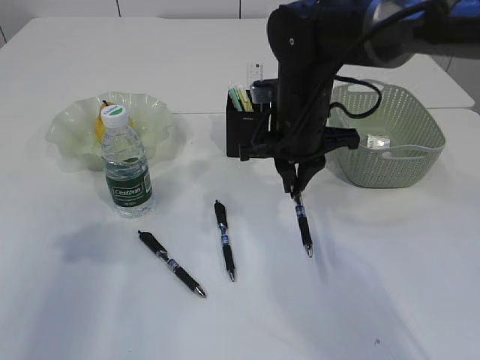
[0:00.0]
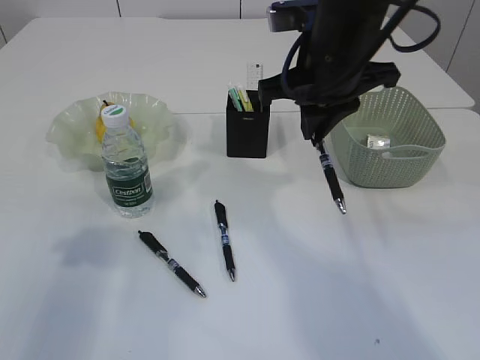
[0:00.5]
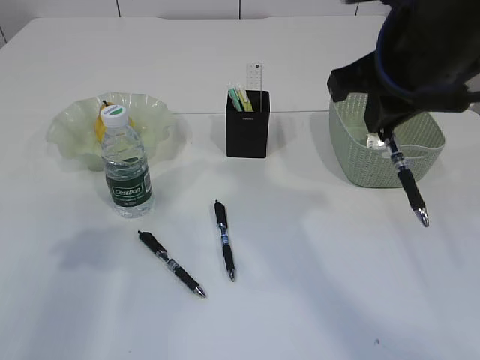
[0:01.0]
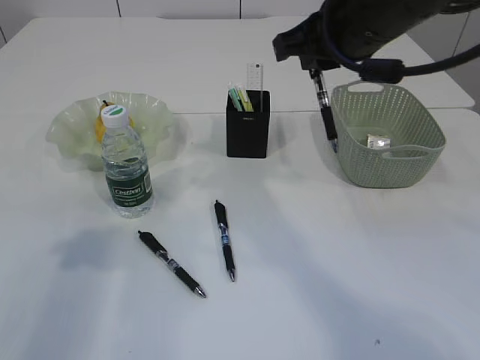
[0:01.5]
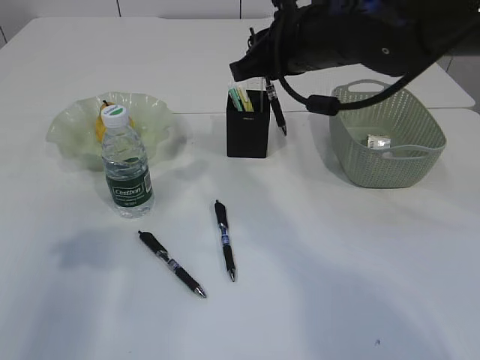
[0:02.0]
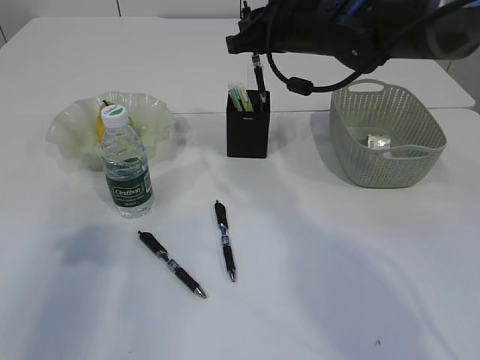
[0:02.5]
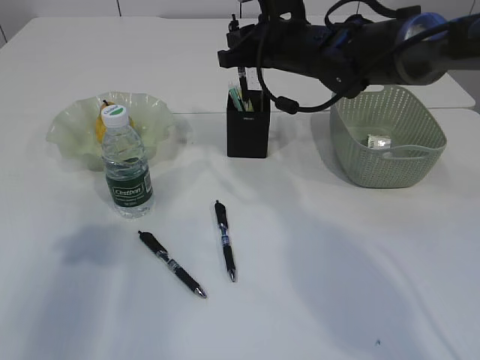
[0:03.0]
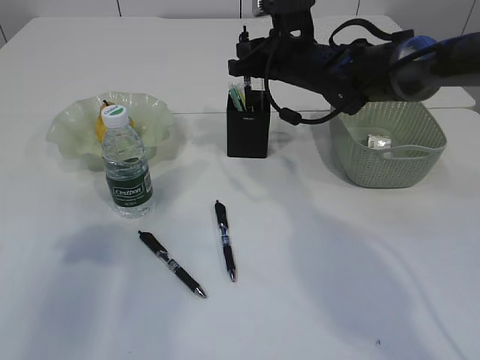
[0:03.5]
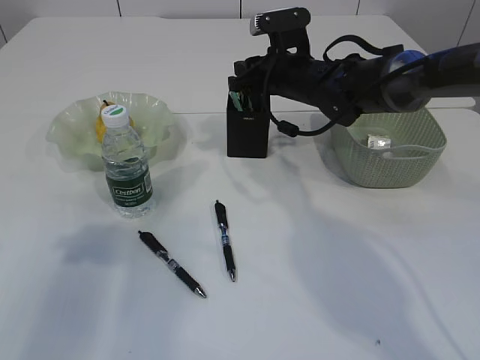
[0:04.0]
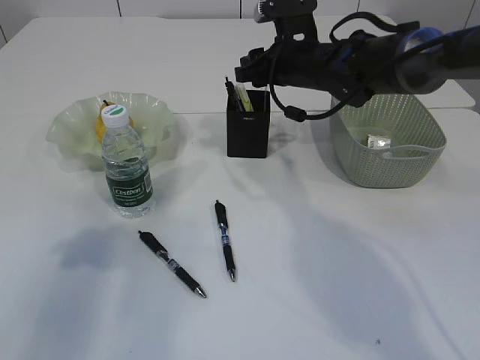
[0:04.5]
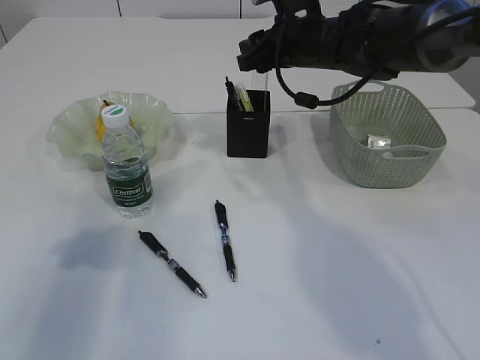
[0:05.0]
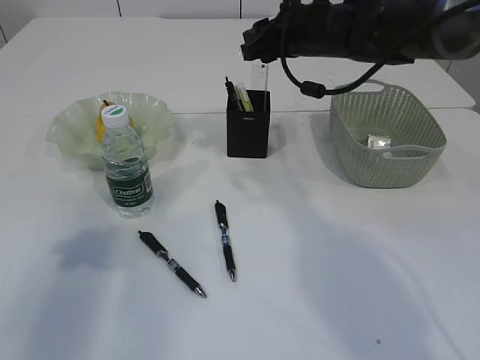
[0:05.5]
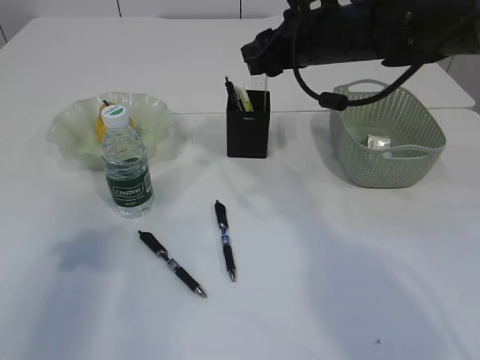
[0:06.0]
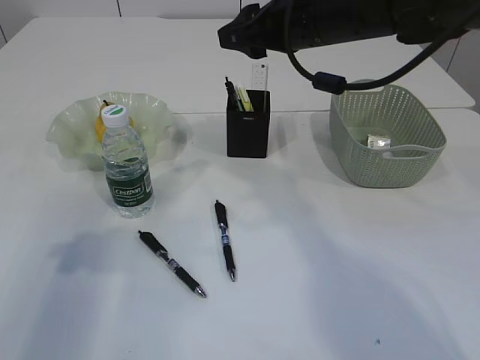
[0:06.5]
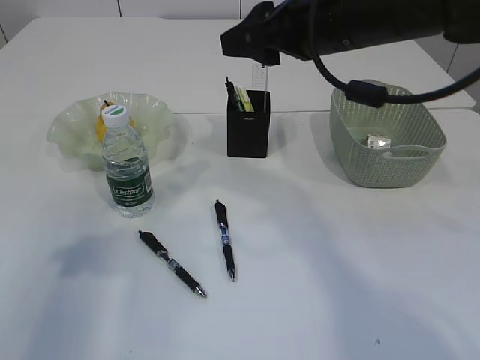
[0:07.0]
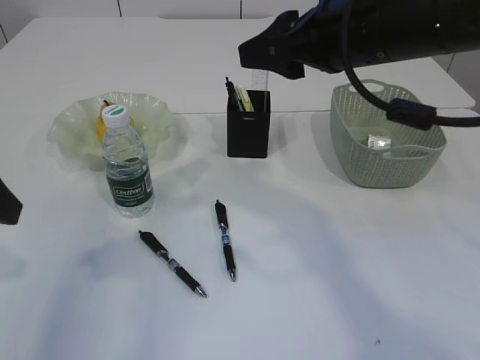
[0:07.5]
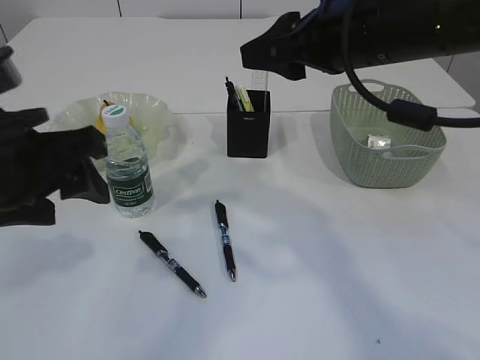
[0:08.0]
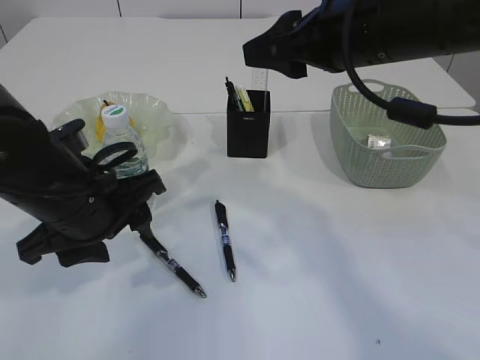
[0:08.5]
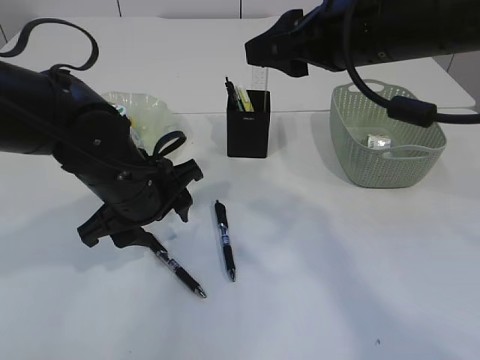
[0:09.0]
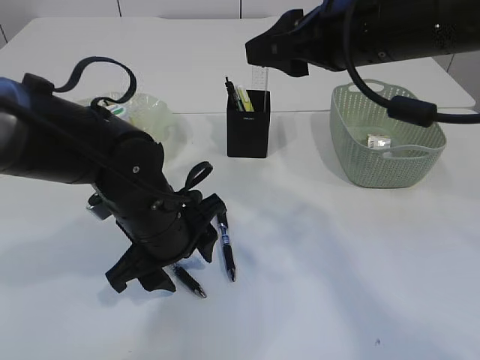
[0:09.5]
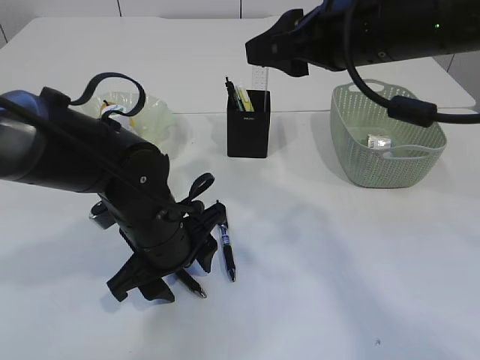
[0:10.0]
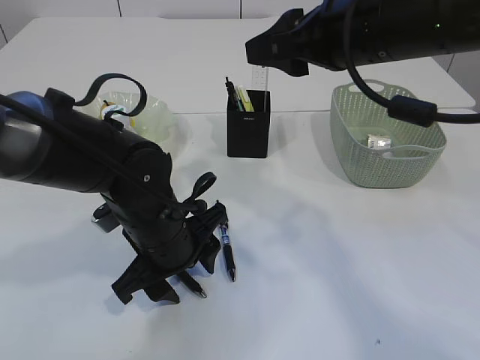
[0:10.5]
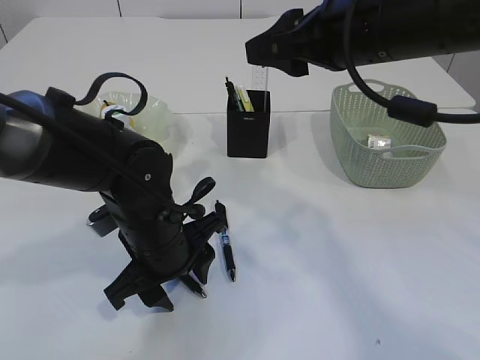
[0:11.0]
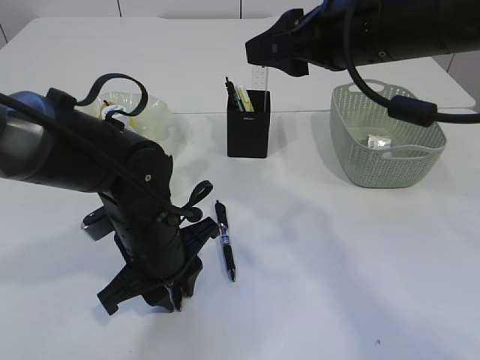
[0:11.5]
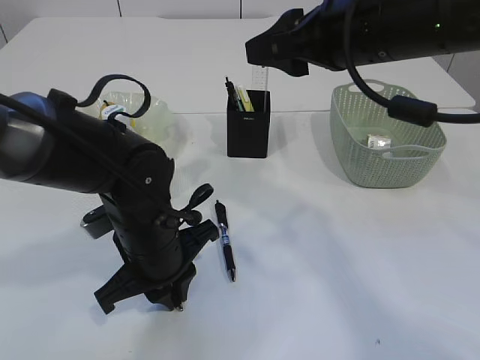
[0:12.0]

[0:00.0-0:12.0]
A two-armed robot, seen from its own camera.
Step, 0:01.0 to 0:04.5: Place the pen into the pen holder.
0:00.0 to 0:02.0: The right gripper heads upward, covering some 10 cm.
0:02.0 to 0:04.0: The right gripper moves forward and downward, about 15 cm.
0:04.0 to 0:06.0: The right gripper heads upward and backward, covering about 10 cm.
0:06.0 to 0:08.0: The right gripper shifts some 10 cm backward and upward. Meanwhile the left gripper heads to the right, covering about 10 cm.
0:08.0 to 0:10.0: The left gripper heads downward, to the right and forward, covering some 20 cm.
0:10.0 to 0:12.0: The left gripper closes its fingers.

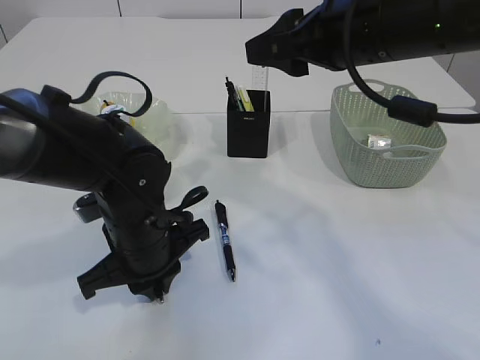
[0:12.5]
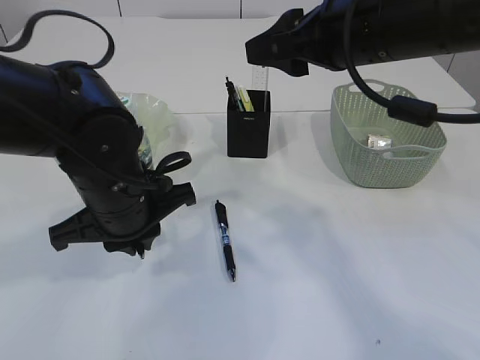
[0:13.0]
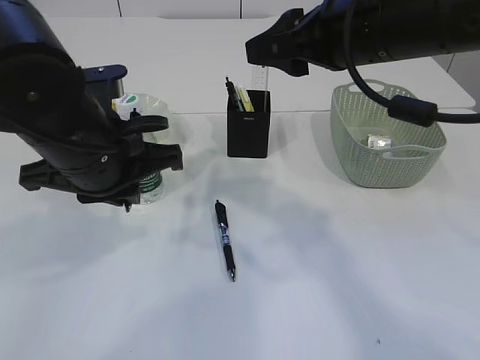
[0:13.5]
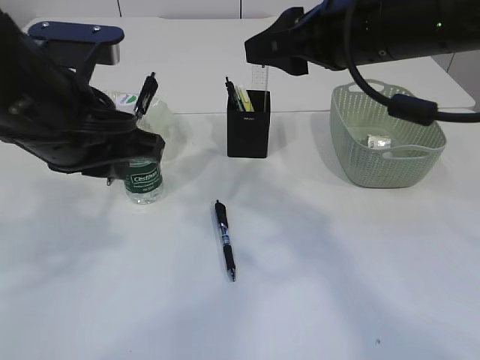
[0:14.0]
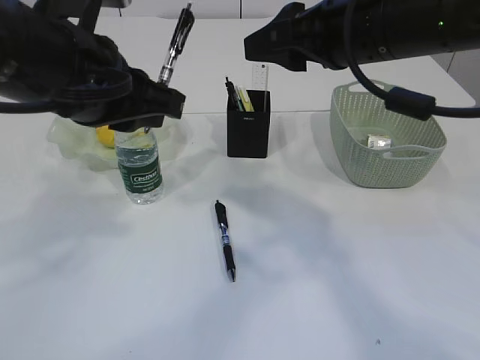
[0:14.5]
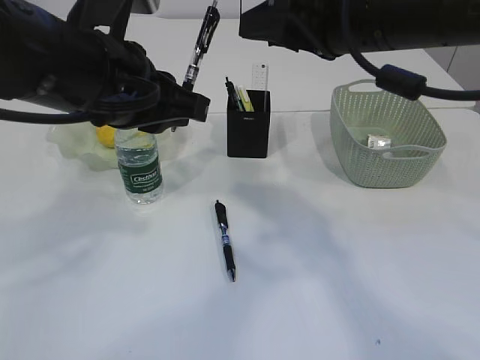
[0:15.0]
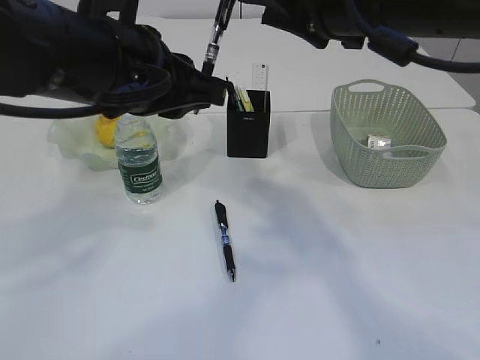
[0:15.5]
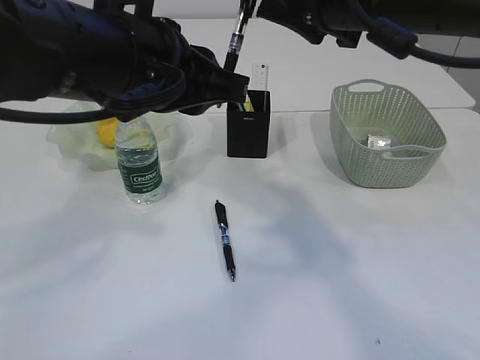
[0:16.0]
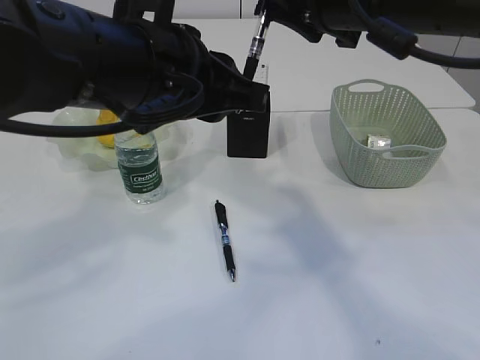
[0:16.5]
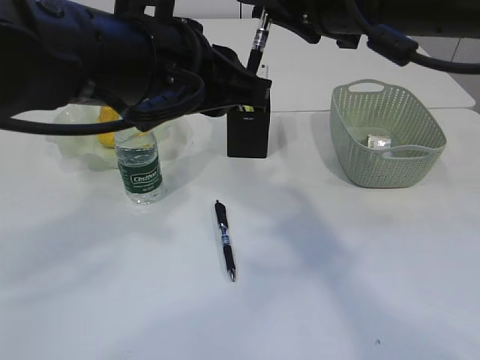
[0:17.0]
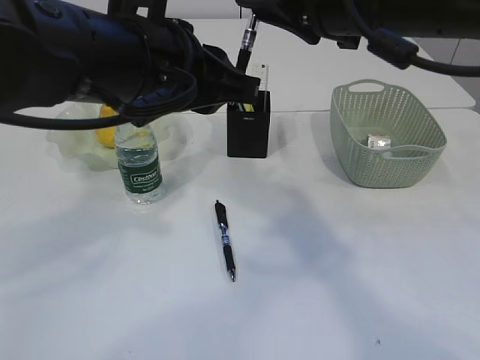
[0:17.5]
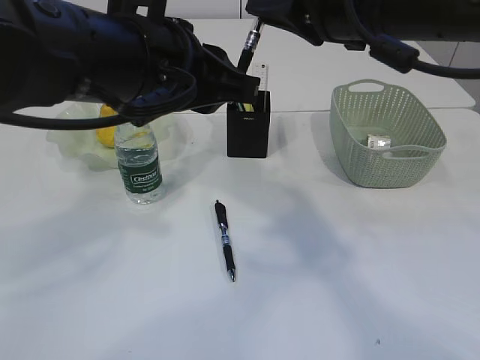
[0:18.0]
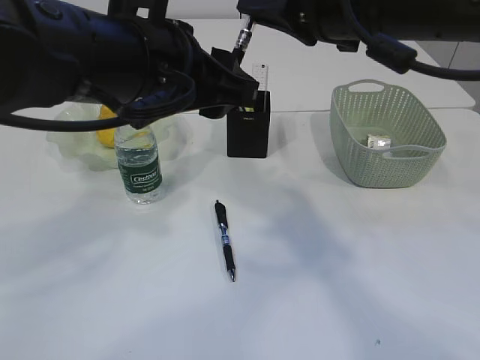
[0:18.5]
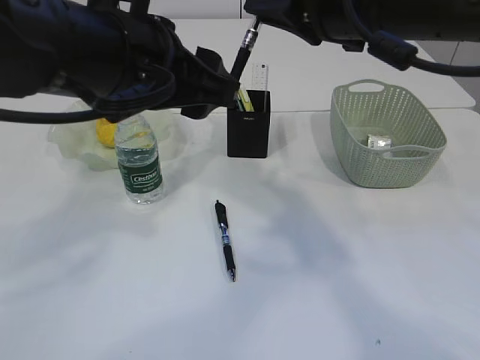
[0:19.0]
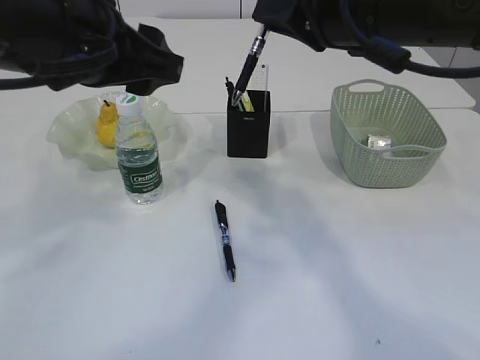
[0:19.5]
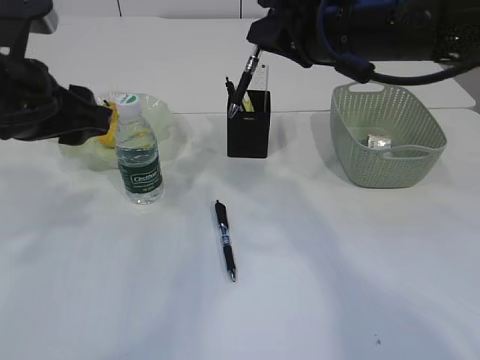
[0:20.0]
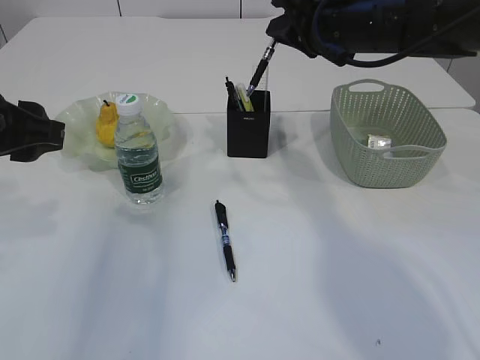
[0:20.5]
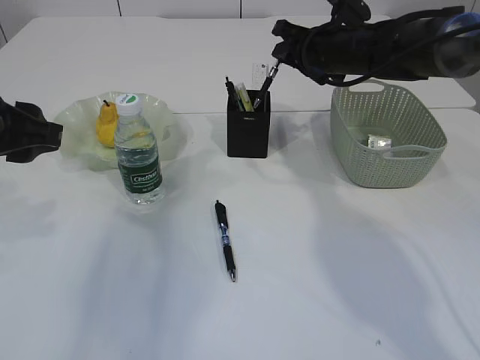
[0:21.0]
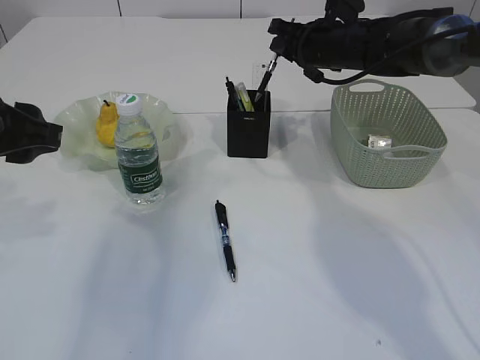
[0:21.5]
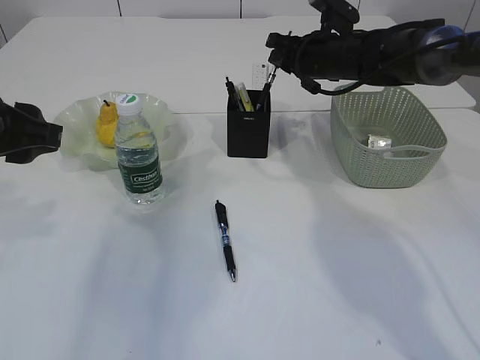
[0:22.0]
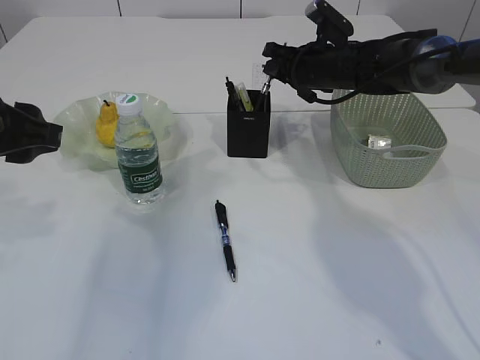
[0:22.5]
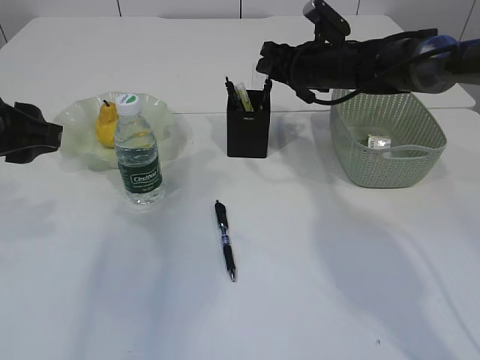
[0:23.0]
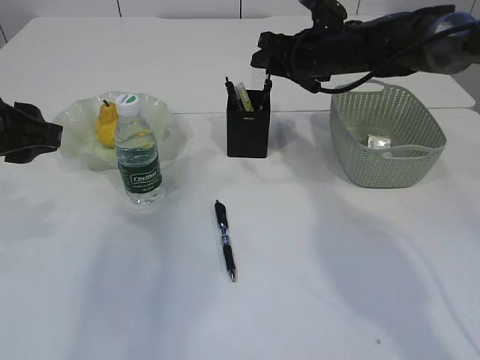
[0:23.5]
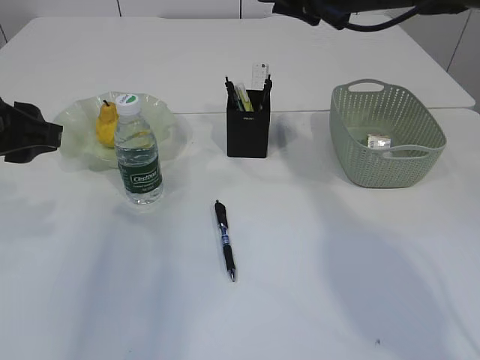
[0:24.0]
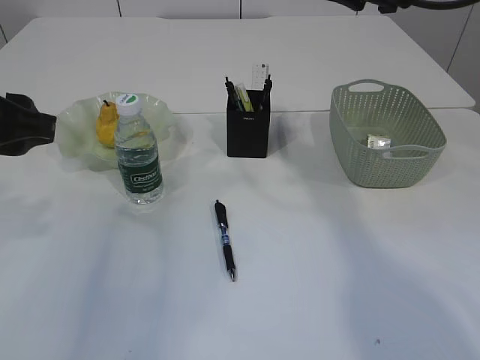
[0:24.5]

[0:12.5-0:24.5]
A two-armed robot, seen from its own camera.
Step, 0:19.0 to 0:24.0: Place the pen into the pen holder.
0:12.5 to 0:14.5: The left gripper goes approximately 20 cm upward.
0:14.5 to 0:16.5: The left gripper shifts roughly 5 cm to the right.
0:16.5 to 0:18.5: The left gripper opens its fingers; the right gripper closes.
0:18.5 to 0:20.5: The right gripper goes approximately 15 cm forward and downward. Meanwhile the left gripper moves to the left, about 15 cm.
0:20.5 to 0:22.5: The right gripper moves downward and forward, approximately 10 cm.
0:22.5 to 0:24.5: The right gripper moves upward and backward, roughly 20 cm, and opens up.

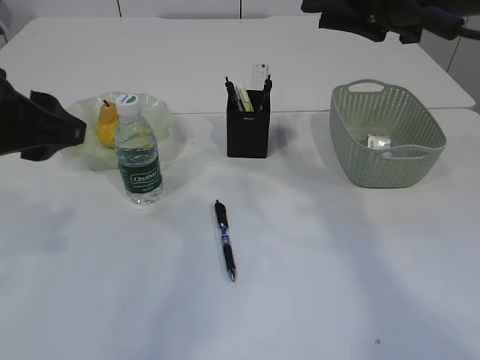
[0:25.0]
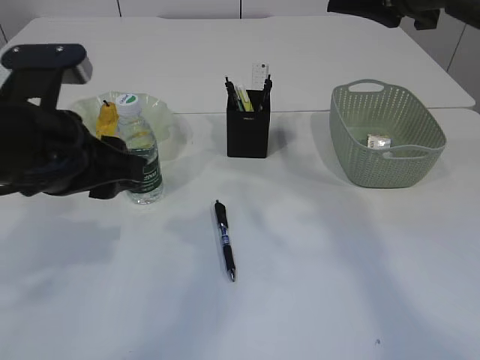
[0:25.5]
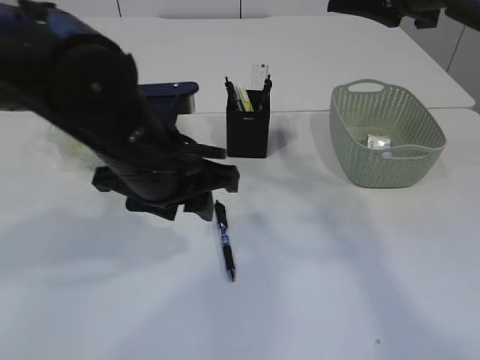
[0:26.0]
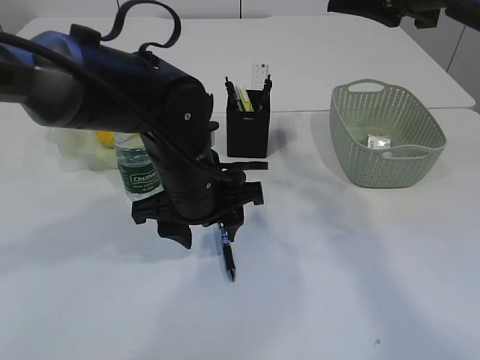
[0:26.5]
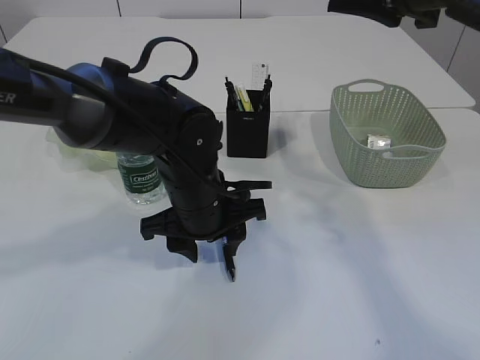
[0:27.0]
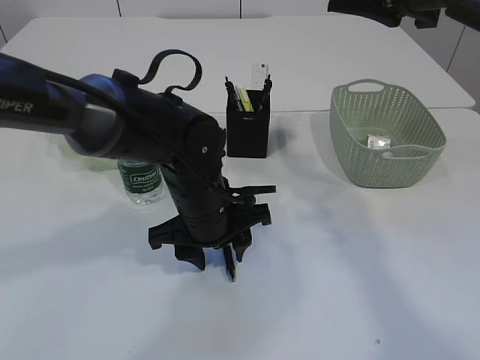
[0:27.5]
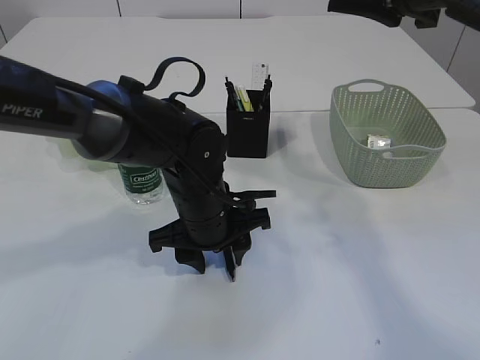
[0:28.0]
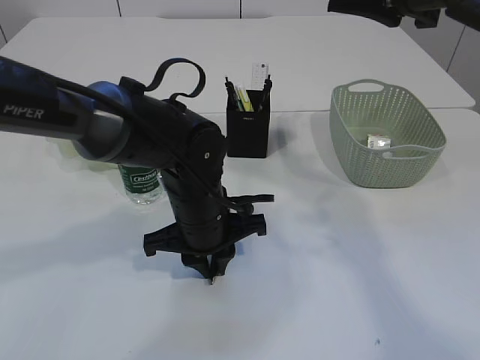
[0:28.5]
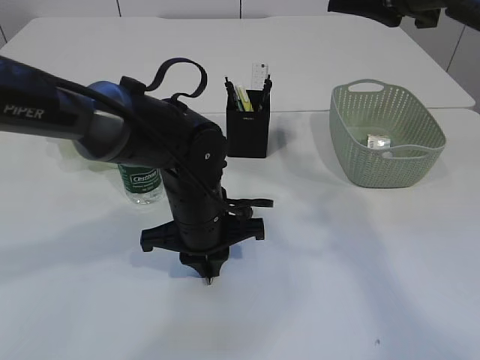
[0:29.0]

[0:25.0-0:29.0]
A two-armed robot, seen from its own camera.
0:25.0 to 0:27.0: The left gripper goes roughly 25 cm to the right, downward and forward.
0:27.0 to 0:29.0: The left gripper closes up.
